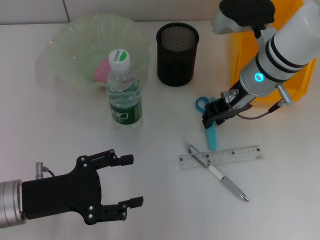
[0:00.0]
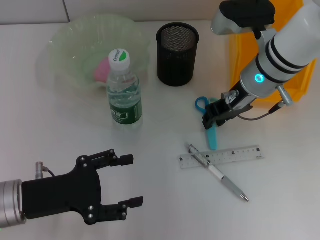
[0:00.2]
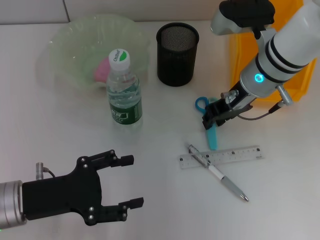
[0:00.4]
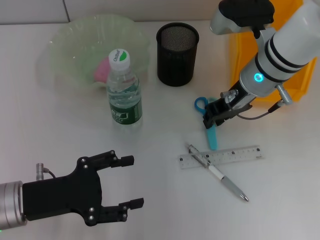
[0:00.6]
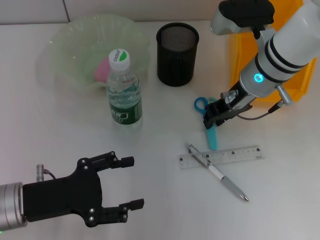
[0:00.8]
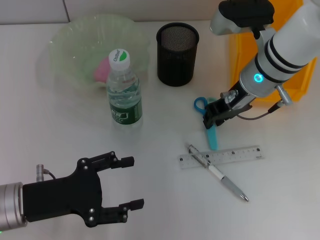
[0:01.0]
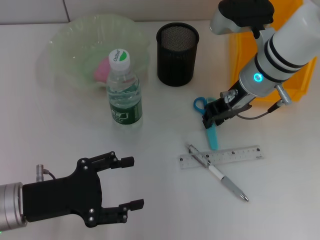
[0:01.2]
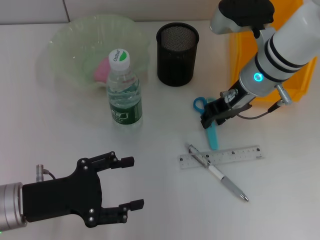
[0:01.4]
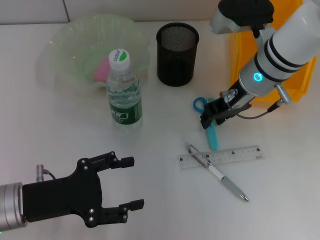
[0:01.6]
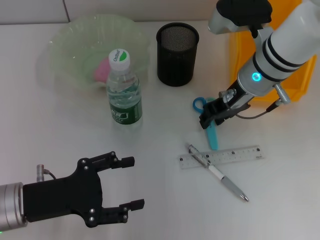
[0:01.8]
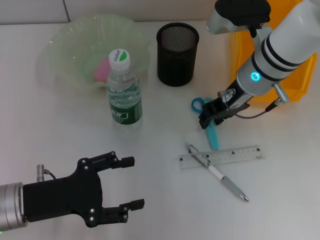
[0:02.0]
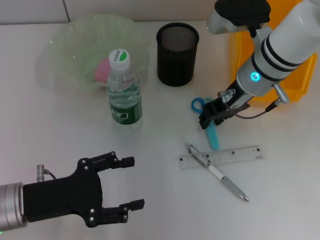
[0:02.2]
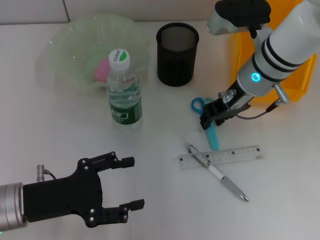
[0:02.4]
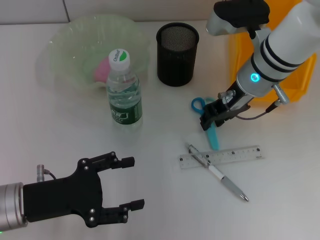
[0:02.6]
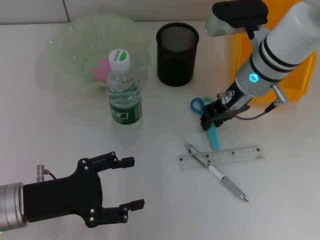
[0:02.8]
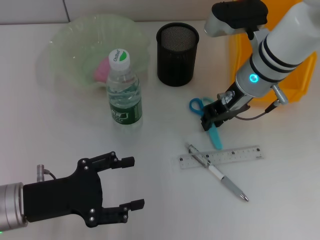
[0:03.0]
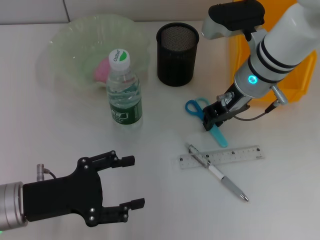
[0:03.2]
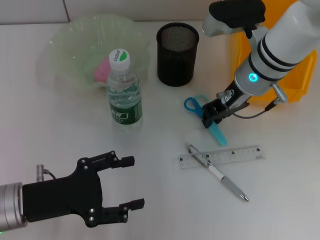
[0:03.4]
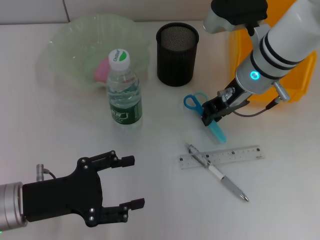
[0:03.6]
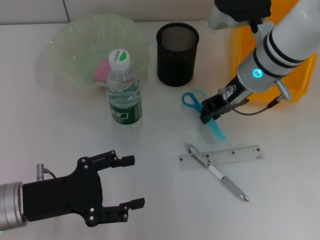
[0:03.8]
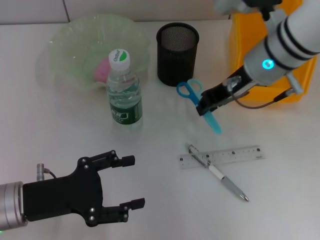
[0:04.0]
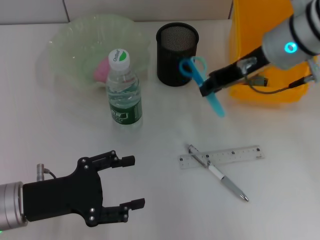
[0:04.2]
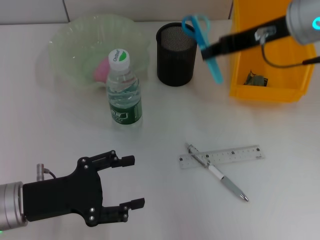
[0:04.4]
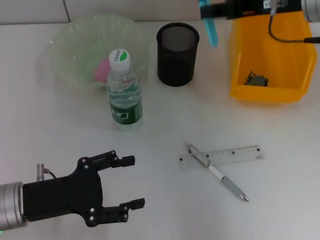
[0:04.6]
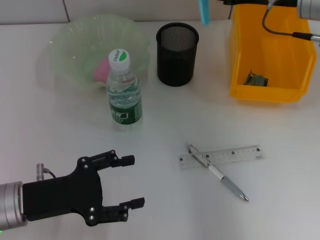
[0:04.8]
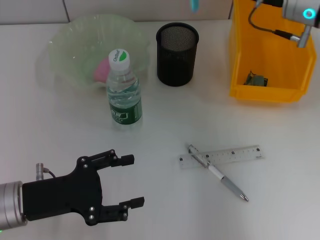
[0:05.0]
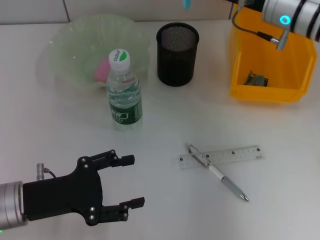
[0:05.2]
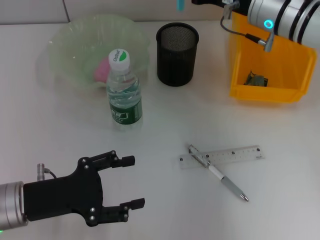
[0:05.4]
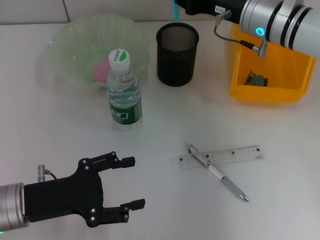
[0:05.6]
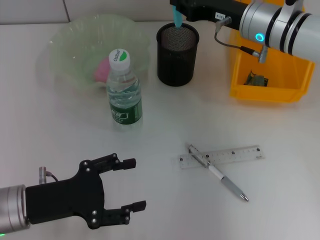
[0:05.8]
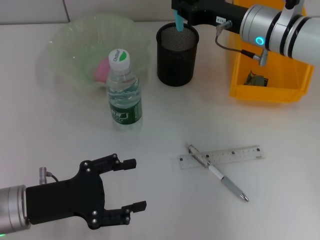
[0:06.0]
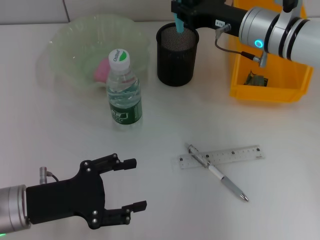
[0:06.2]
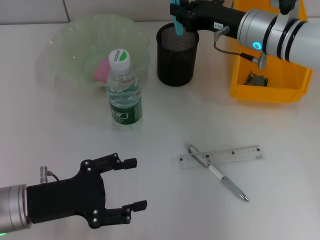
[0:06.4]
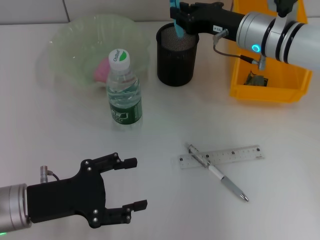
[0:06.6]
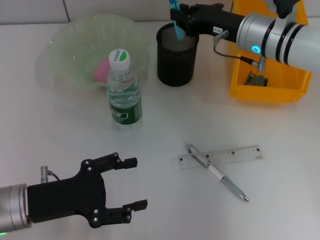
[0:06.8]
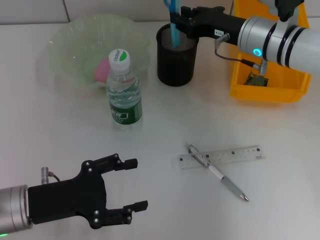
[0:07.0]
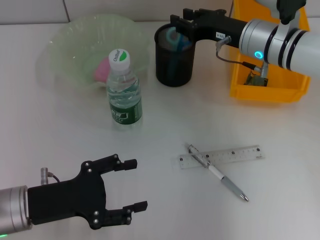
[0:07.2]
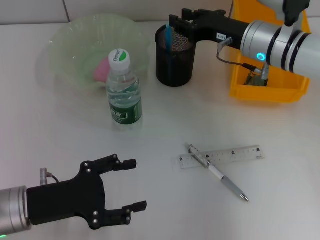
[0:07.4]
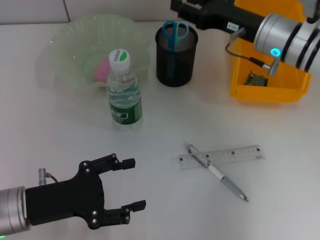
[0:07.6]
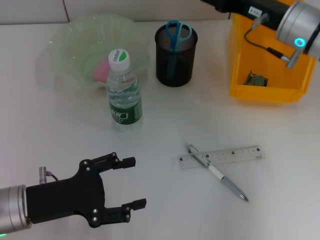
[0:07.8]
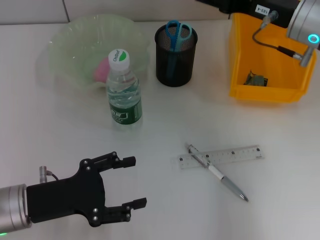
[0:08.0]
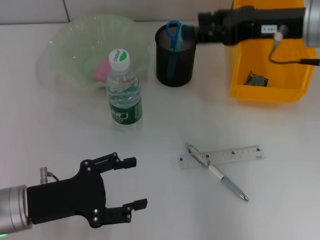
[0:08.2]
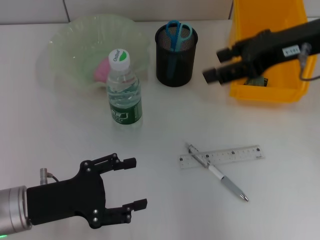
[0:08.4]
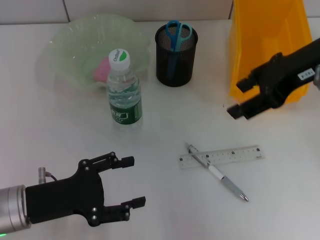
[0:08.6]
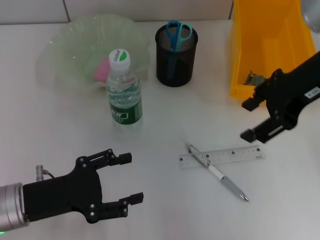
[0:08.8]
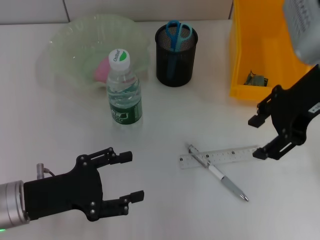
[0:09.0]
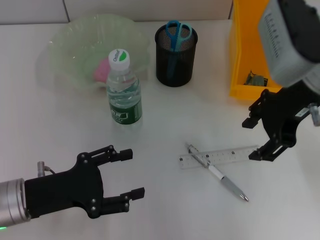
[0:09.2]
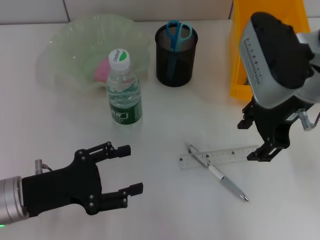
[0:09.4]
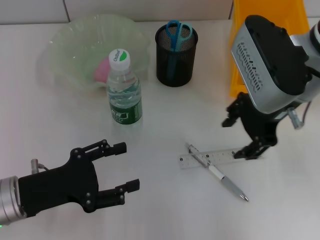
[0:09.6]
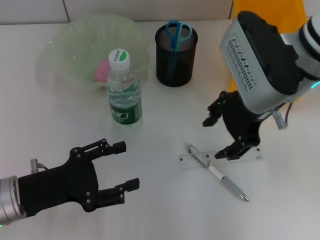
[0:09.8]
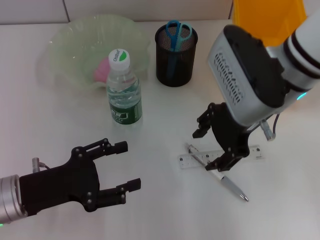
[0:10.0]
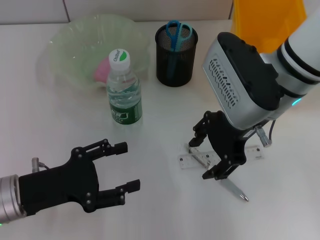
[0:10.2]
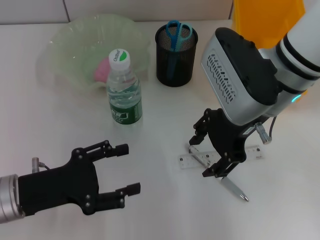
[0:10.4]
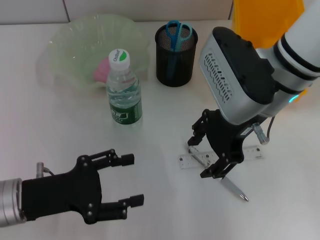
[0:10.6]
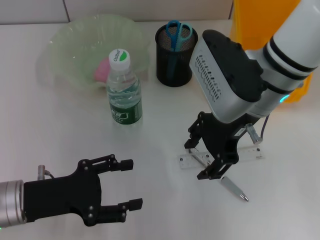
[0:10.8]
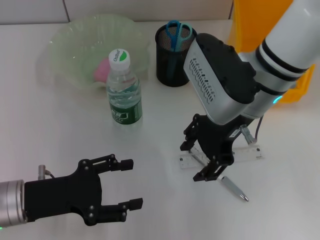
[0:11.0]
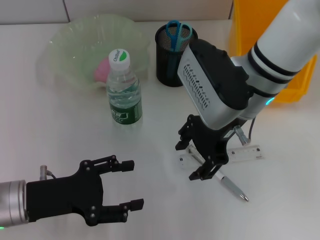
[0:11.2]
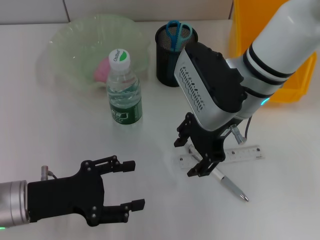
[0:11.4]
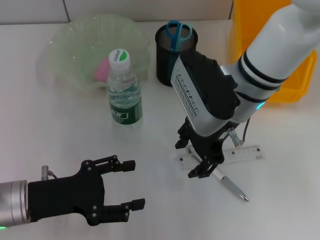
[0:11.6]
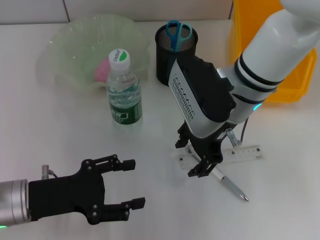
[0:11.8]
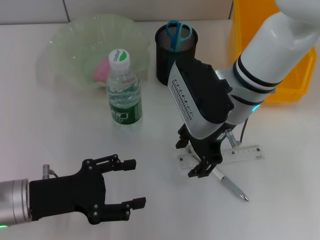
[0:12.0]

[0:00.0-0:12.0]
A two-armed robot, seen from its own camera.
Step, 0:00.0 to 0:03.2: Grab the blue scissors with the right hand.
Step, 0:03.4 to 0:07.2: Place the blue scissors into the pen holder with the right hand.
0:00.0 to 0:03.0: The two grippers keep their place.
0:03.0 to 0:04.4: The right gripper goes about 10 cm upward and to the right.
0:04.4 to 0:06.0: The right gripper is displaced downward and forward by some 10 cm.
0:06.0 to 0:07.6: The right gripper opens.
0:07.6 to 0:09.0: The right gripper shifts about 10 cm upward and backward.
0:09.0 to 0:10.4: The right gripper heads to the left, covering approximately 10 cm.
0:10.4 to 0:12.0: The right gripper changes place by about 5 cm.

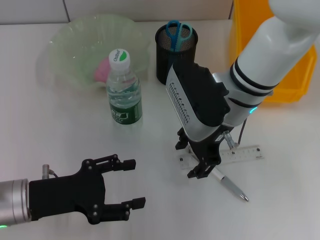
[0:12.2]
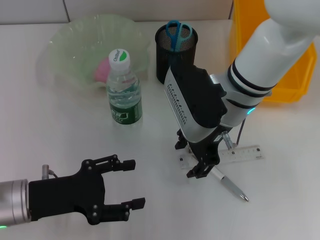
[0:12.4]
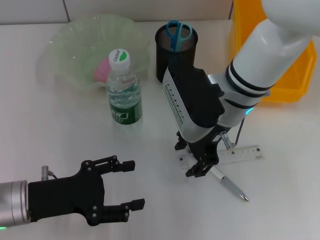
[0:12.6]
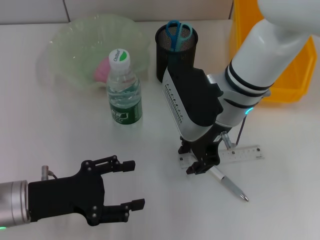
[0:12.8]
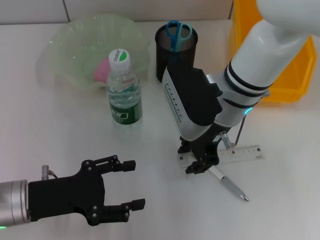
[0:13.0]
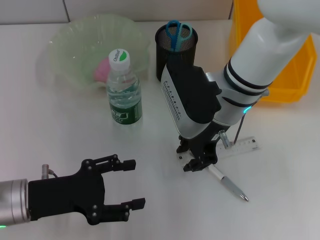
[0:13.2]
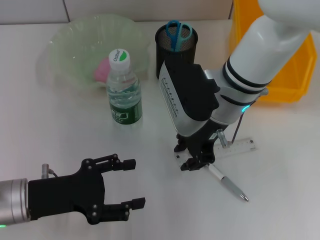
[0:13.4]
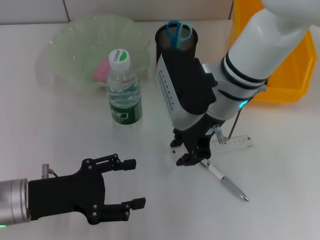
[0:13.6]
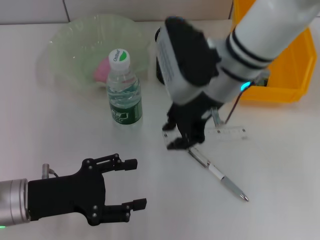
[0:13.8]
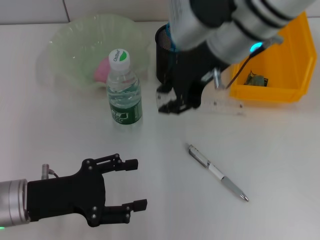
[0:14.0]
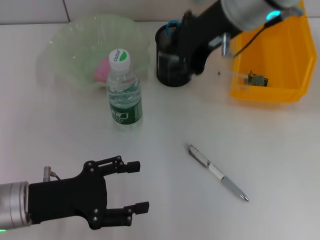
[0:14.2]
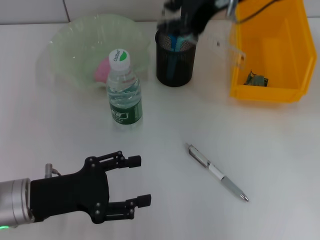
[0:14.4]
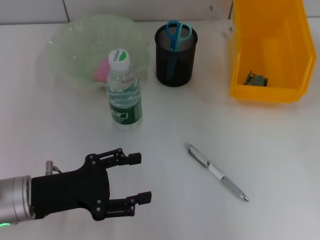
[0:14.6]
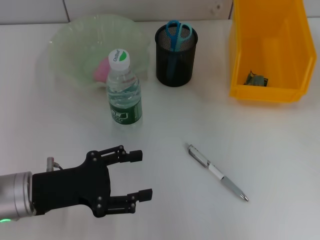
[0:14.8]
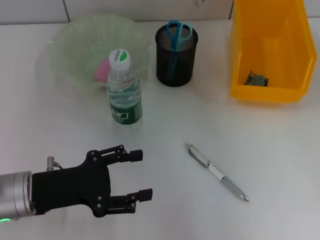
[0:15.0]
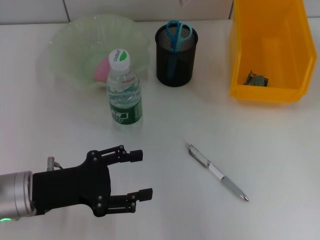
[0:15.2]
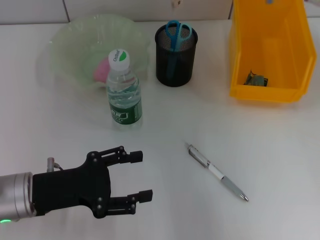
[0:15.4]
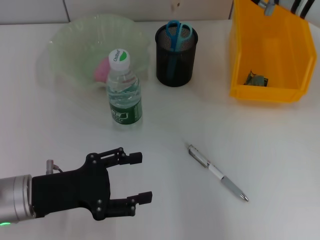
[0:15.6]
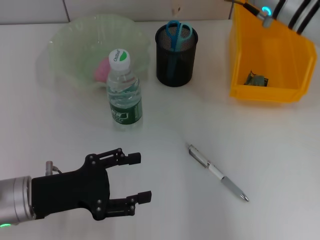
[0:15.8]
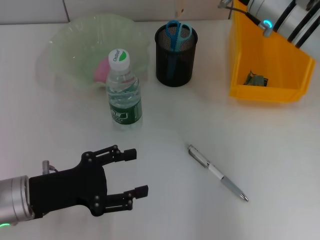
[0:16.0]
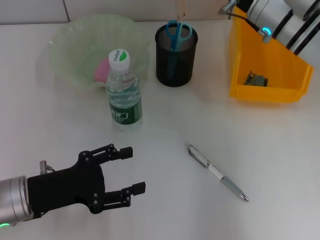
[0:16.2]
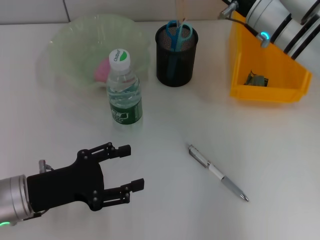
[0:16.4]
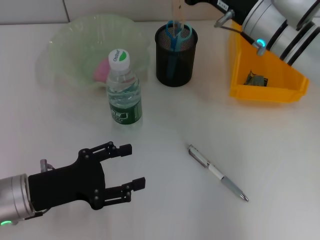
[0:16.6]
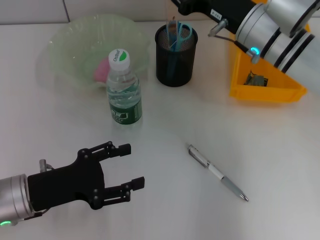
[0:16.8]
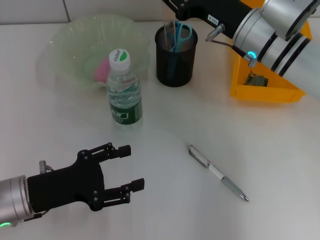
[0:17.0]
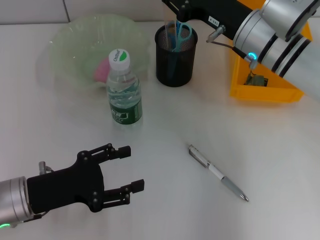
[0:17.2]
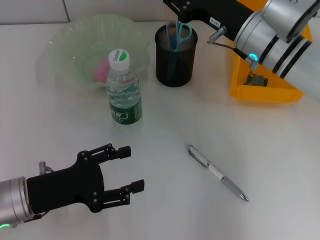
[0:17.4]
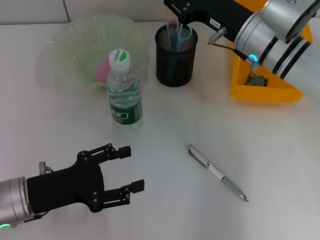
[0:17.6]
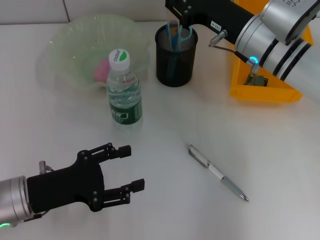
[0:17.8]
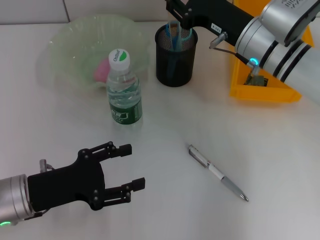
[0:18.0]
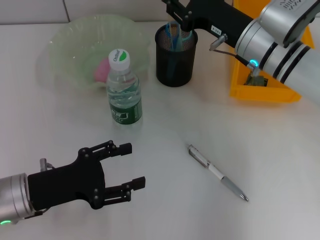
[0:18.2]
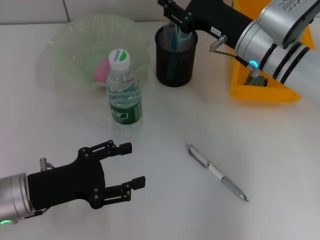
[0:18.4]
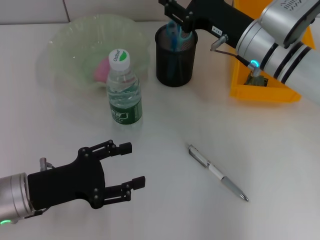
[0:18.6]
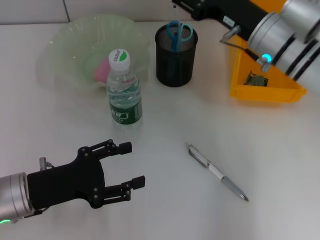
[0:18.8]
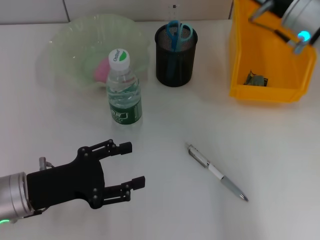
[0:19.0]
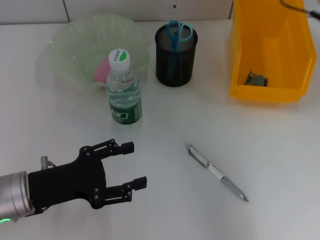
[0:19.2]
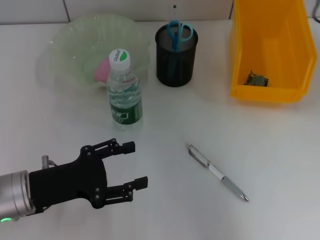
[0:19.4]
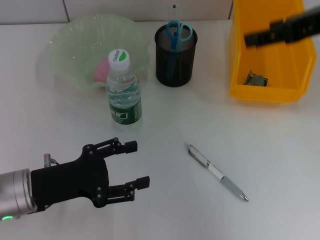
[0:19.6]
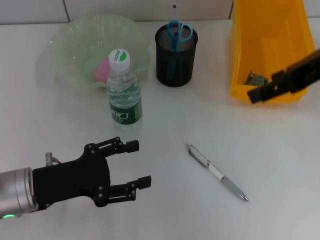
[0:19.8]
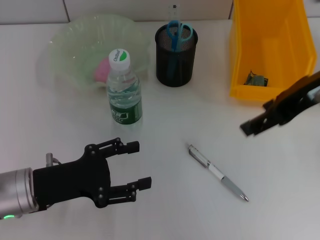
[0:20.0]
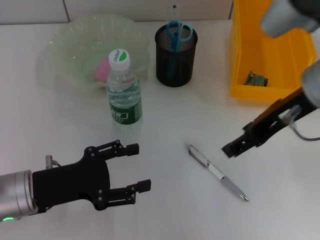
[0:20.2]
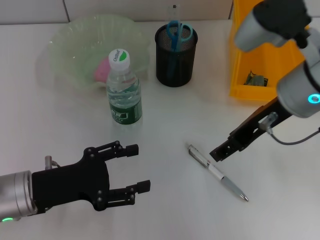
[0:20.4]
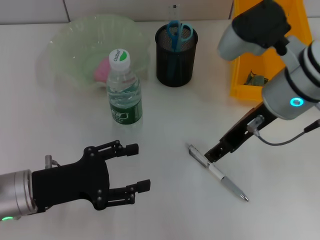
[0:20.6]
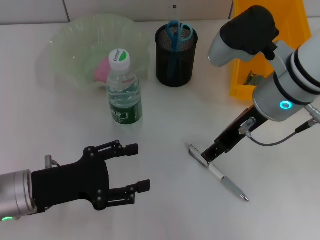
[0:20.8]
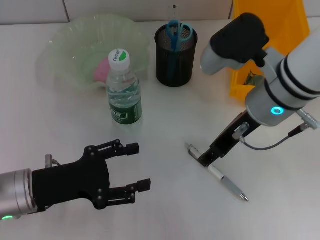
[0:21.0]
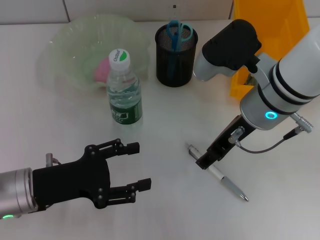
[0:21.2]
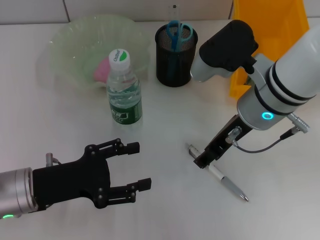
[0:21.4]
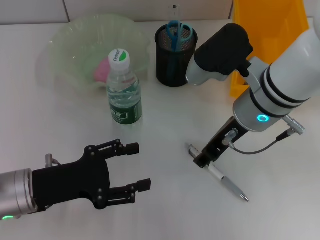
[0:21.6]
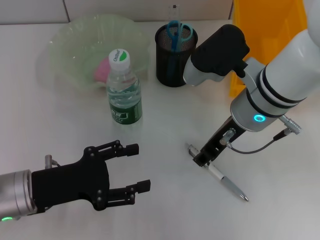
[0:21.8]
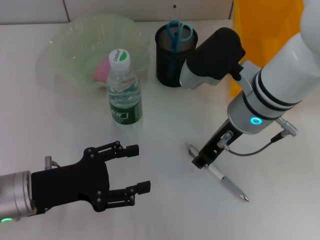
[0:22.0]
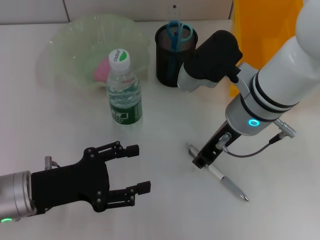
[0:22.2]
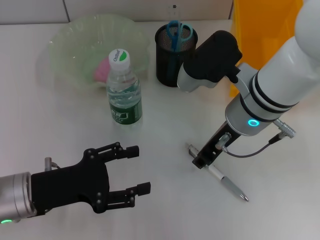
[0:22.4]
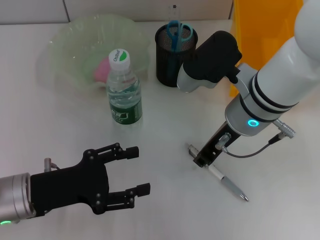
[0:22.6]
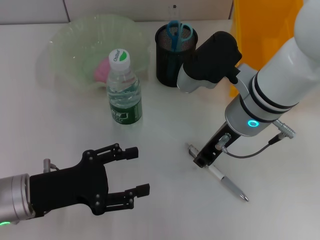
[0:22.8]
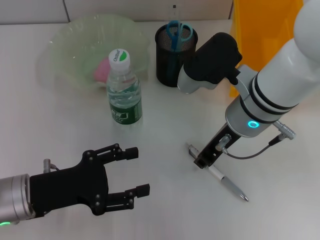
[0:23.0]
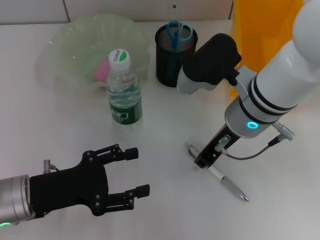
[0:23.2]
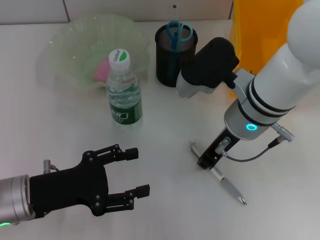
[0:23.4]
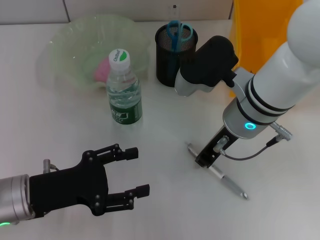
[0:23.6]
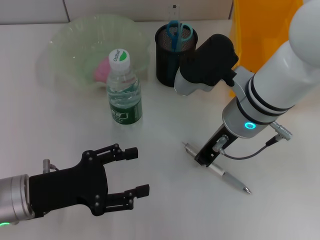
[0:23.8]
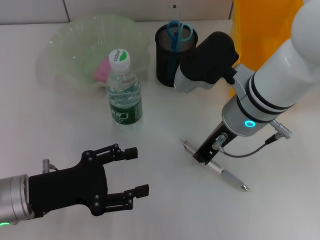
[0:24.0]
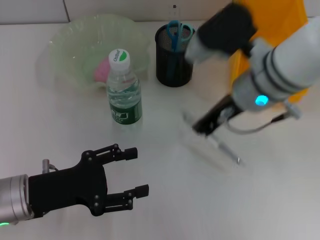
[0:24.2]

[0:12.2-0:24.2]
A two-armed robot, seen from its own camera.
Step, 0:13.4 to 0:18.6: Place the ruler into the pen holder with the right hand.
Step, 0:19.0 to 0:23.8: Grab the gray spring-action pen with the right hand.
0:12.2 to 0:13.8: The right gripper closes.
0:13.8 to 0:15.2: The right gripper heads upward, to the right and forward, covering some 10 cm.
0:15.2 to 0:16.6: The right gripper heads downward, covering about 10 cm.
0:16.6 to 0:18.2: The grippers move only a little.
0:18.2 to 0:19.8: The right gripper goes about 20 cm upward, backward and to the right, and opens.
0:19.8 to 0:21.2: The right gripper shifts some 15 cm downward and to the left.
0:21.2 to 0:22.6: The grippers move only a little.
0:22.6 to 0:24.2: The right gripper closes up.
